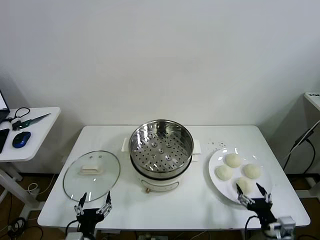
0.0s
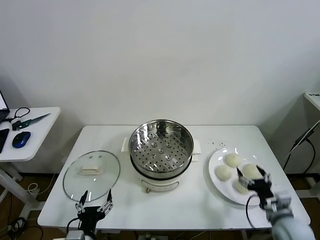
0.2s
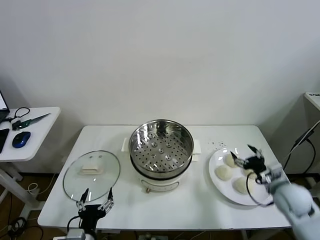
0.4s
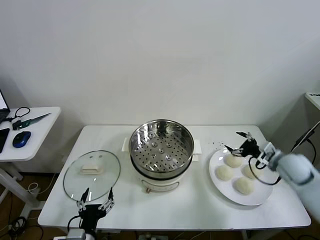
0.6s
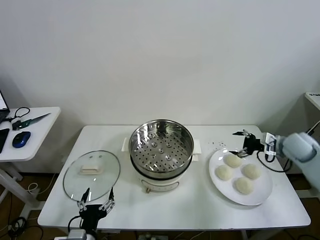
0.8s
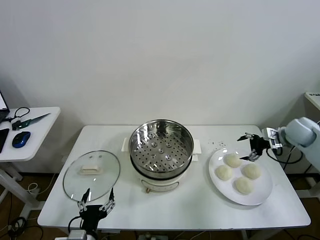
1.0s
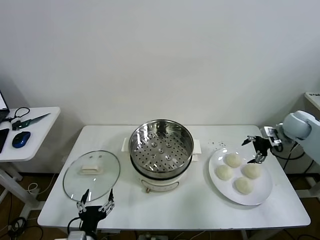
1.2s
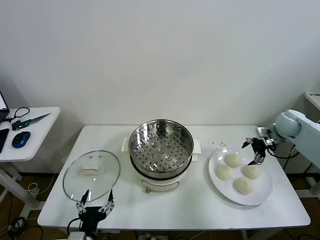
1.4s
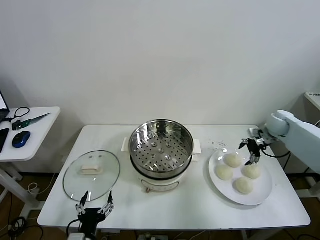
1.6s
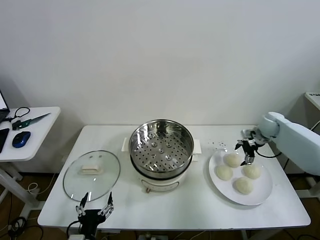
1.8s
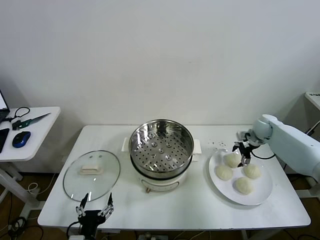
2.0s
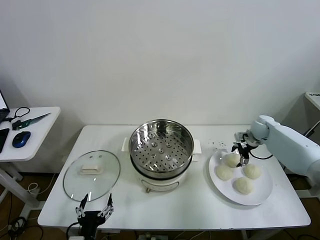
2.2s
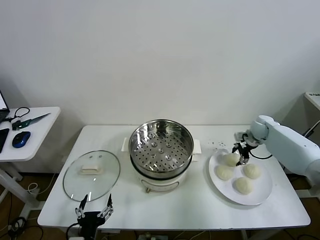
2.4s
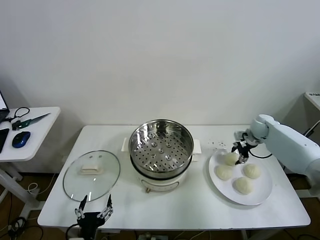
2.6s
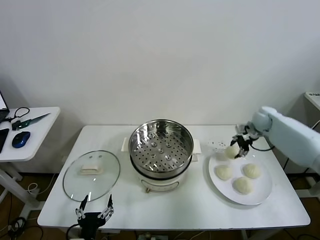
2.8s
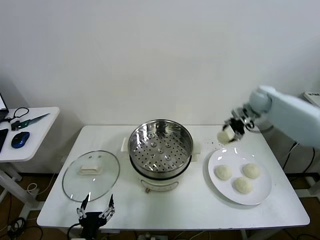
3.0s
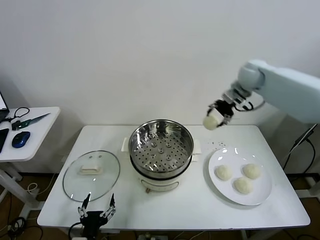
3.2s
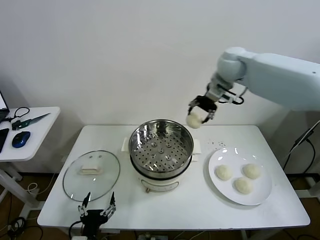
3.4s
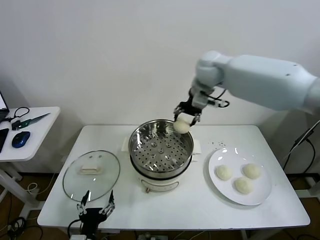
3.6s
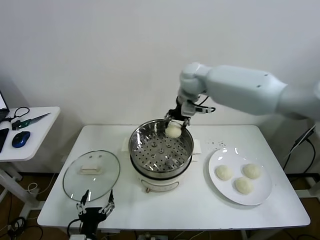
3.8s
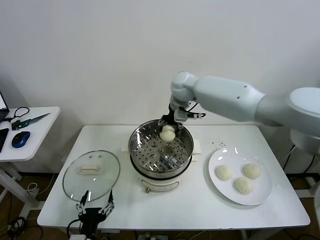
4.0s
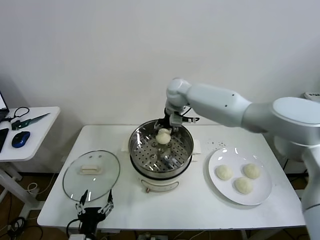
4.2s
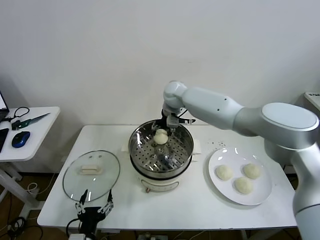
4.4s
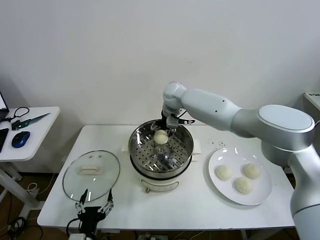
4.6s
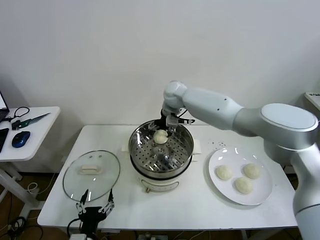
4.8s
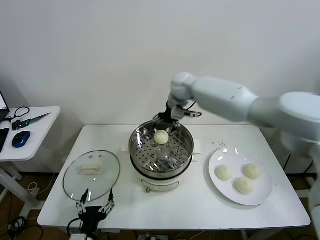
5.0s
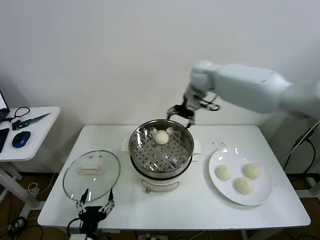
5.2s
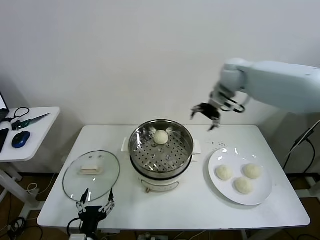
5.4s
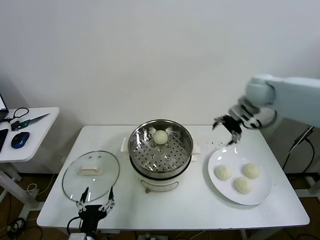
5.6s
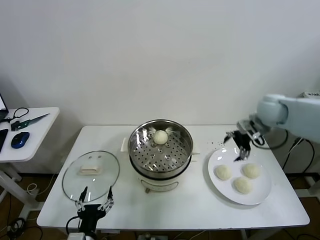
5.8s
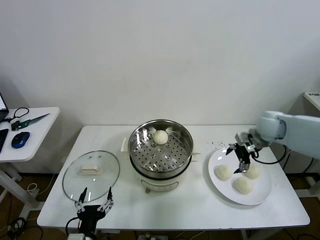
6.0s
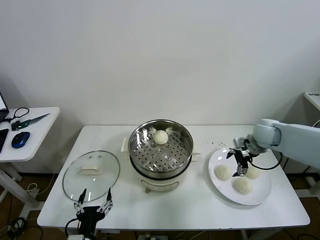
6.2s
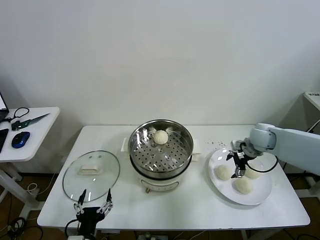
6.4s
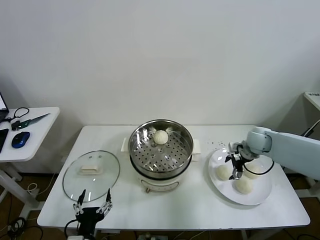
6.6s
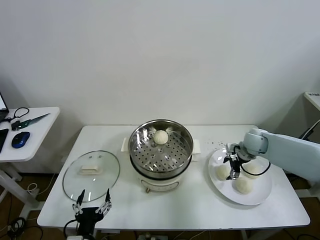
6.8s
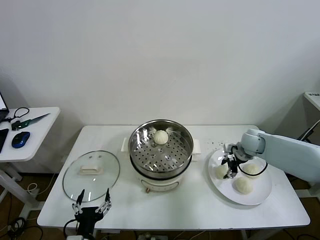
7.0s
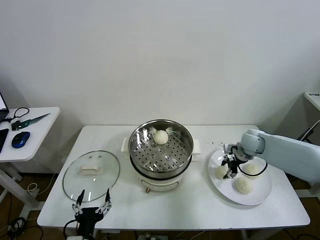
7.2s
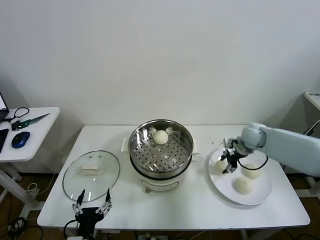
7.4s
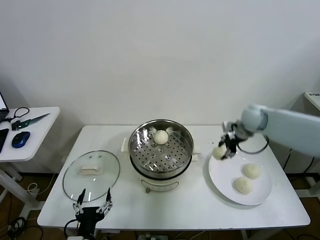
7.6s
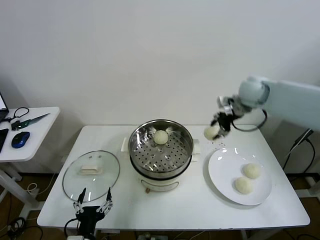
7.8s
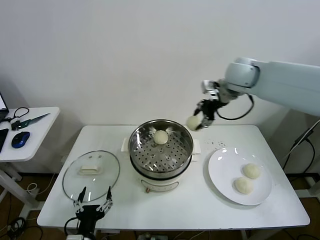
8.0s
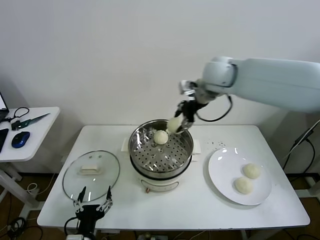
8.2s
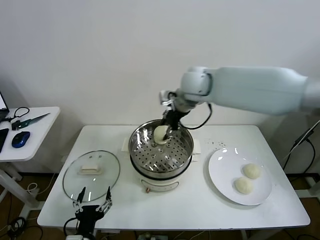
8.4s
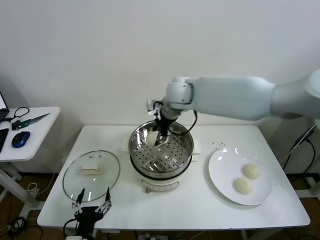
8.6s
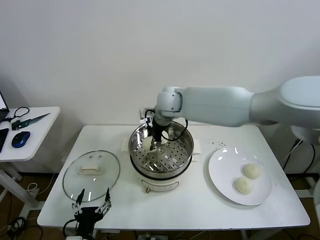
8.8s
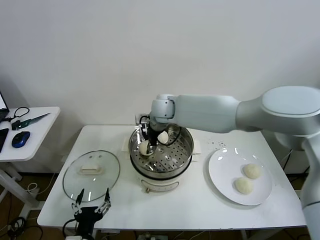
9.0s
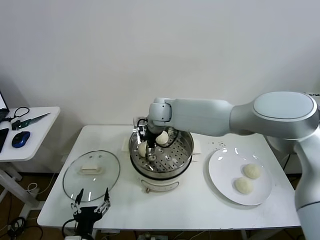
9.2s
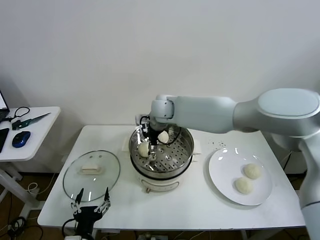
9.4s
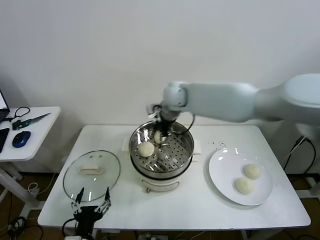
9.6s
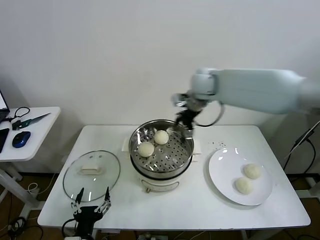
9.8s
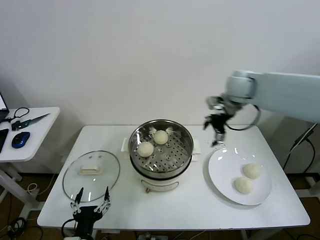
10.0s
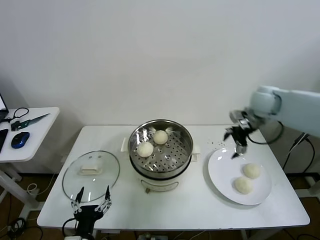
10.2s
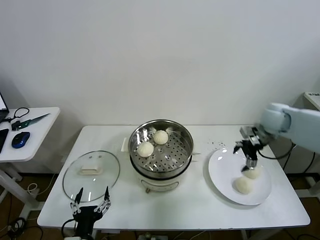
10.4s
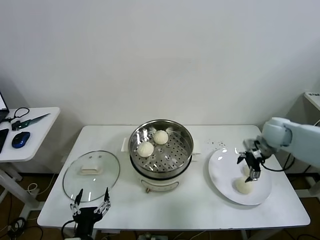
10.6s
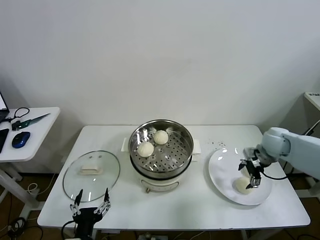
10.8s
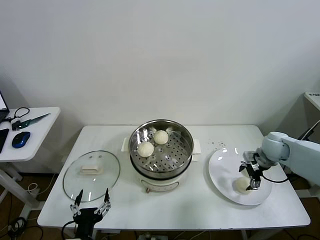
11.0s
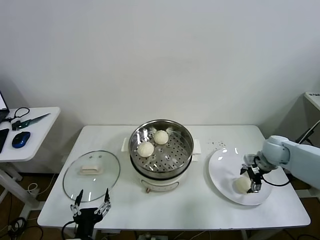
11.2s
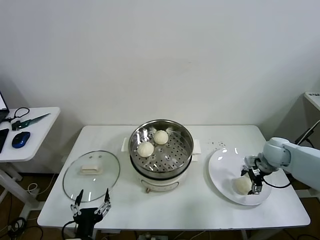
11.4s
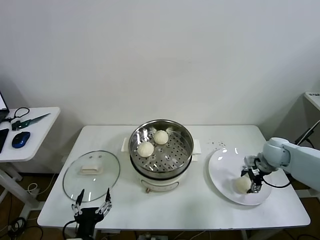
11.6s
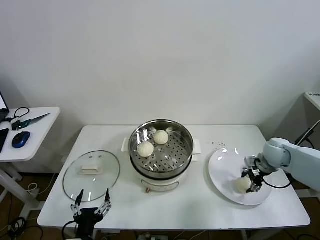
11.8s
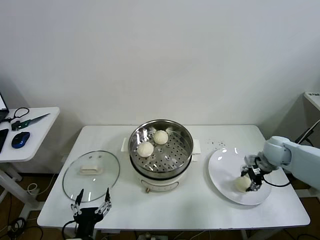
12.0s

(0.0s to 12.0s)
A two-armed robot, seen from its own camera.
Task of the whole recording: take steamed baozi put them in steamer then cover it.
Step, 0.0s - 2.4s: Grasp the baozi in the plate with right gripper.
Step, 2.6s - 4.8s: Place the baozi on the steamer with right gripper.
Step, 5.0s - 6.8s: Grasp the baozi in the plate with right gripper.
Step, 7.2s - 9.4s: Place the baozi on the steamer with right gripper.
Step, 9.6s - 11.6s: Grasp the baozi in the plate with right gripper.
1.6s - 3.0s: The right gripper goes approximately 20 cm upward and to the left, and closes.
3.0s - 4.4s: The right gripper heads to the left, covering some 30 cm.
4.4s - 6.0s: The right gripper moves to the right and backward, some 35 cm, and opens.
6.0s - 7.6s: The right gripper shifts about 10 cm forward and upward, and closes up.
7.6s - 9.0s: The right gripper is displaced to the left by about 30 cm.
9.0s - 10.4s: The right gripper heads to the right, covering approximately 40 cm, and opens its fingers.
10.4s - 12.0s: The right gripper is displaced downward by about 10 cm, and closes its fingers.

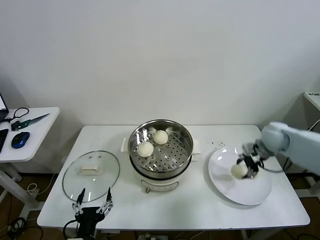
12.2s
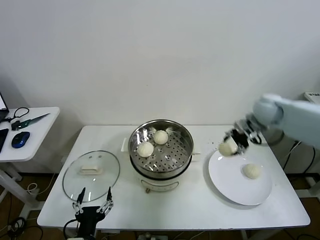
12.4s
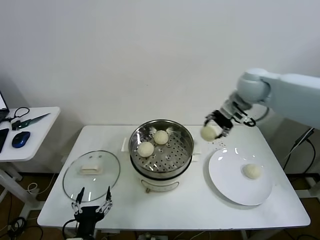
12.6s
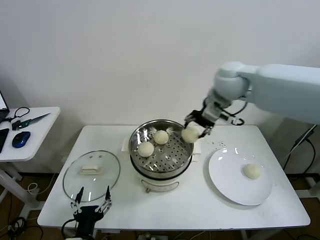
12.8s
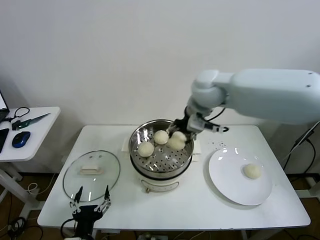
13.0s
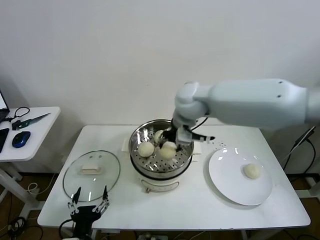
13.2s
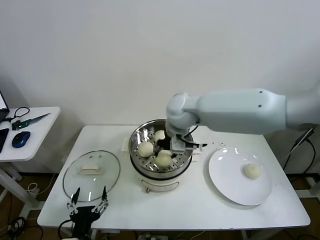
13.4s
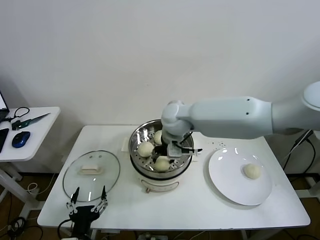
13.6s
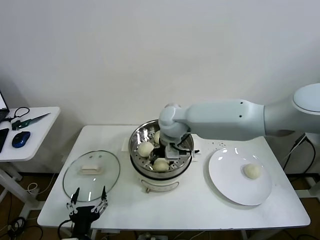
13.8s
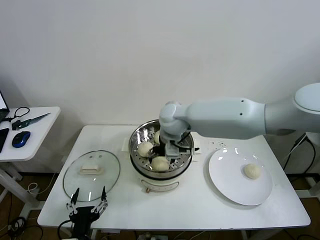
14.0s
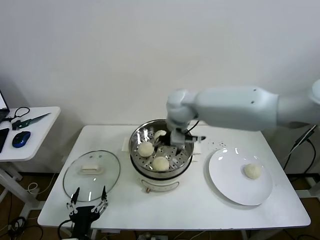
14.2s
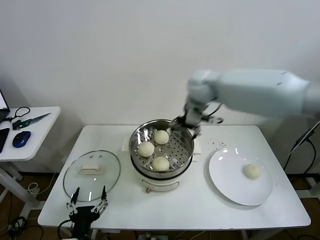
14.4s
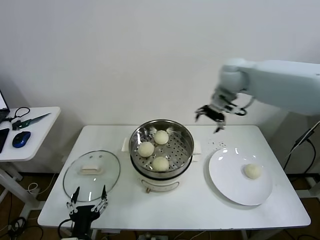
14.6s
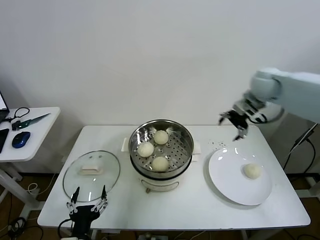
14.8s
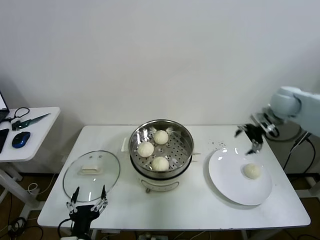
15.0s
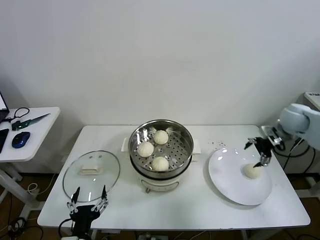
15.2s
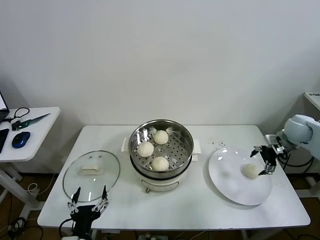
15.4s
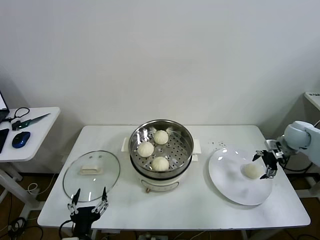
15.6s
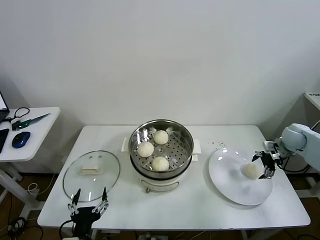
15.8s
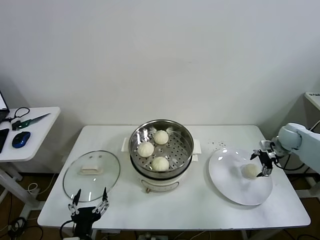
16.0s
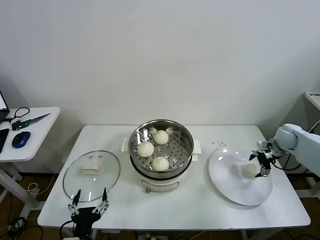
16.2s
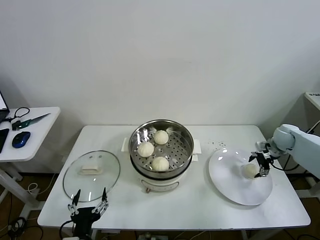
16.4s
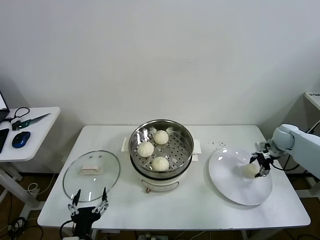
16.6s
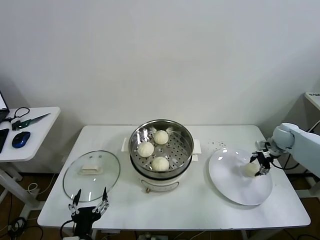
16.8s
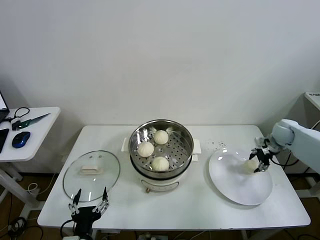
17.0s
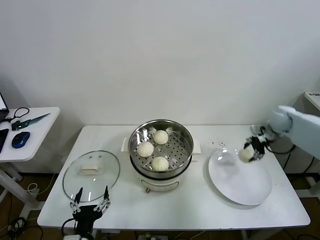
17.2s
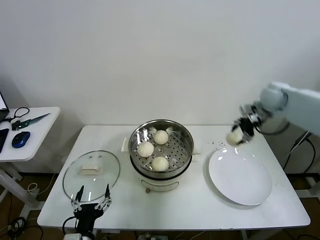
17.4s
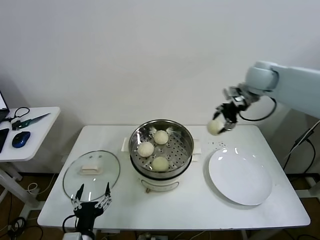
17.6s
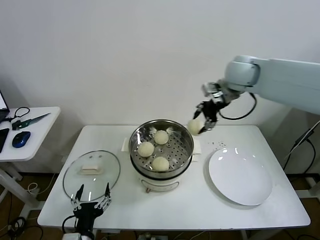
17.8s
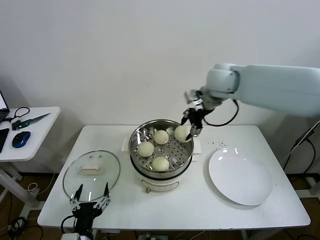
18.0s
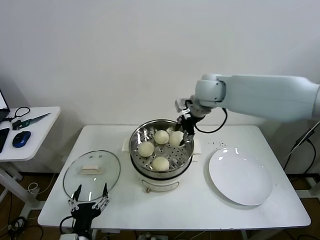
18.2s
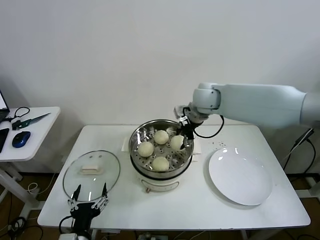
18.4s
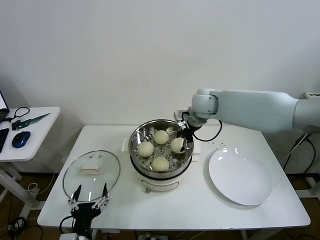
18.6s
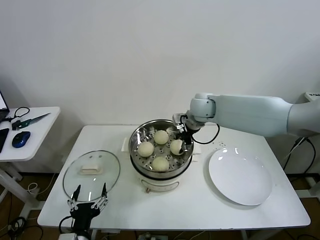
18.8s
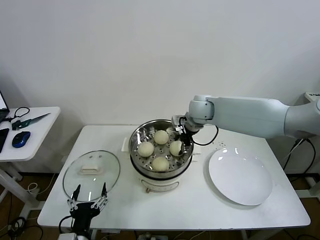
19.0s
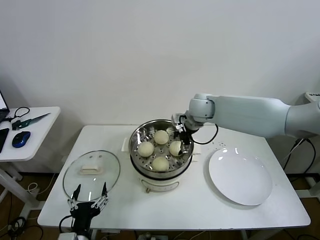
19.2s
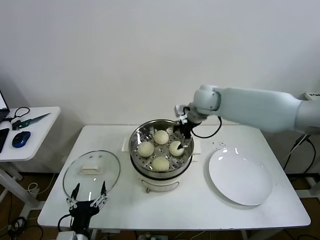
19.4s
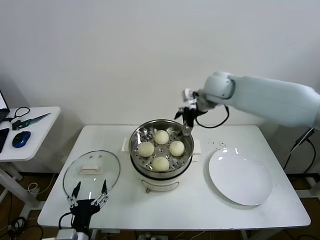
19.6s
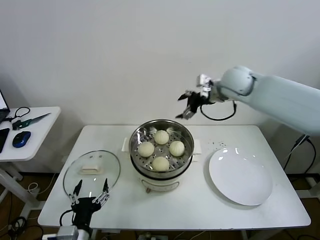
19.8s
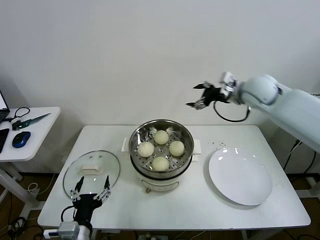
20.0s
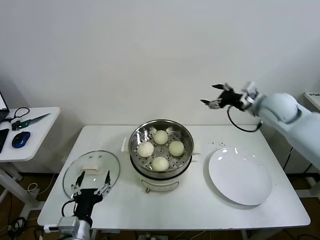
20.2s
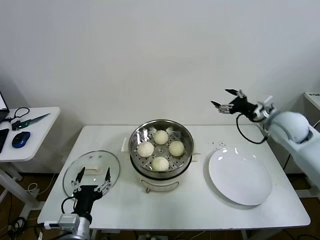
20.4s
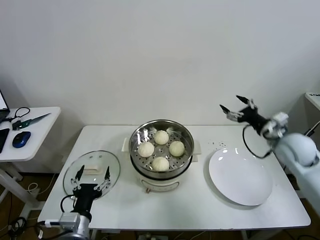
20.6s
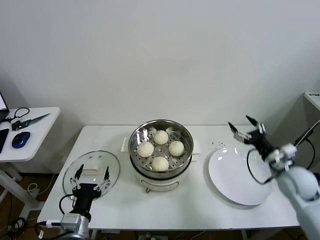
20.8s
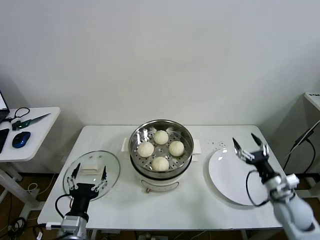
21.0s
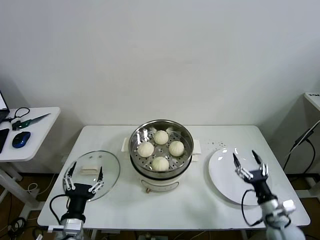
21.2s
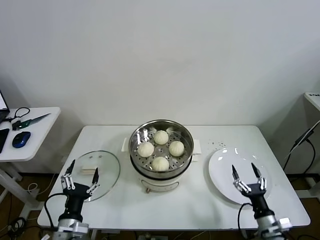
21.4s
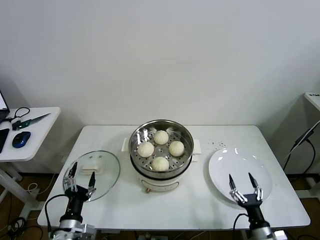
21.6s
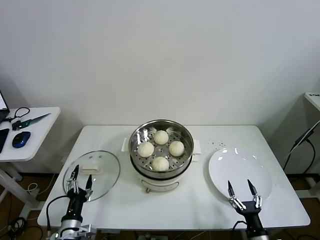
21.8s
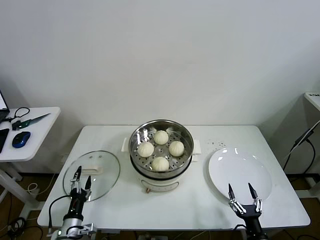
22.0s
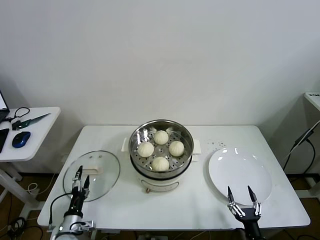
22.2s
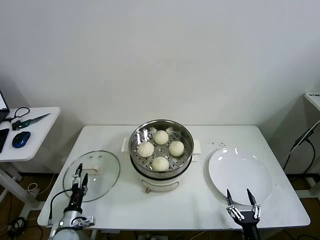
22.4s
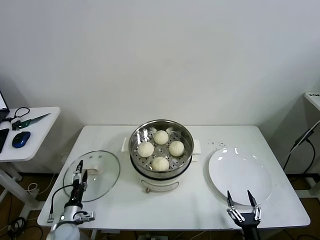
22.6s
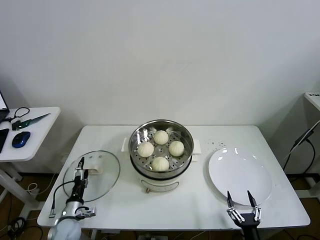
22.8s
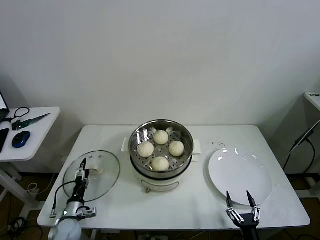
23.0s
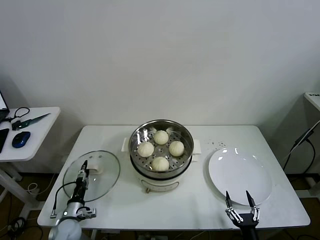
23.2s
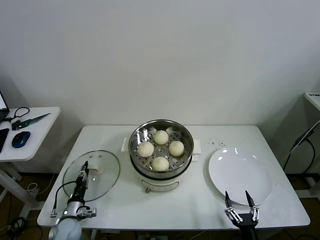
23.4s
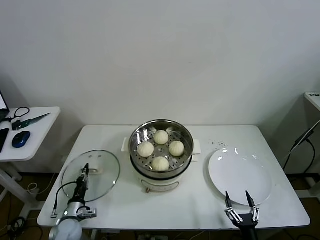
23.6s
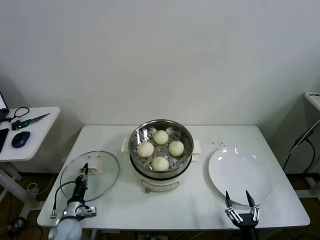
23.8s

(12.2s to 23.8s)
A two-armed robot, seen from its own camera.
Task of the whole recording: take steamed baozi put them in steamer then cover it.
Step, 12.2s - 14.0s: Place the baozi on the steamer with right gripper.
Step, 14.2s - 16.8s: Grasp the baozi in the plate with right gripper.
Step, 17.0s - 19.2s: Place the baozi on the steamer with right gripper.
Step, 19.4s - 23.6s: Grasp the pot lid with left gripper.
12.2s - 13.6s: The right gripper goes about 35 cm to the left.
13.6s - 15.0s: The right gripper goes some 35 cm to the right, and opens.
15.0s - 16.6s: The right gripper shifts about 15 cm downward and to the right, and closes its fingers.
16.6s - 18.0s: The right gripper heads to the left and upward, covering approximately 40 cm.
18.0s - 19.4s: The right gripper moves downward, some 5 cm, and opens its fingers.
19.4s - 21.0s: The right gripper goes about 40 cm backward, downward and to the right.
21.0s - 22.4s: The left gripper heads downward and to the left, covering about 20 cm. The right gripper goes some 25 cm backward, downward and to the left.
22.4s - 23.8s: The left gripper closes.
